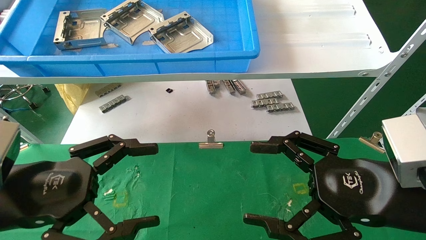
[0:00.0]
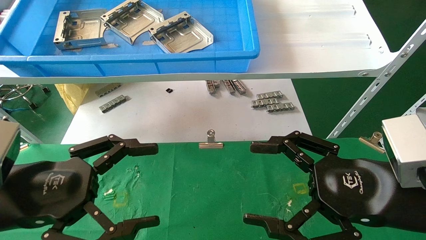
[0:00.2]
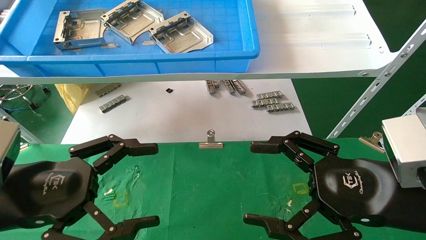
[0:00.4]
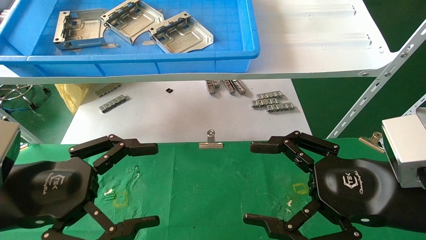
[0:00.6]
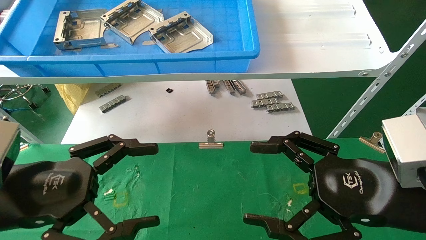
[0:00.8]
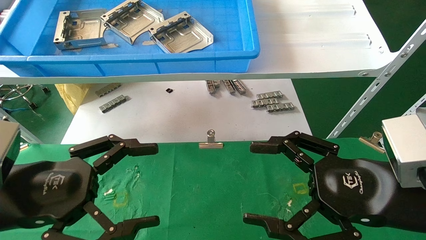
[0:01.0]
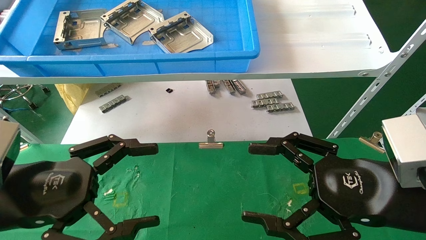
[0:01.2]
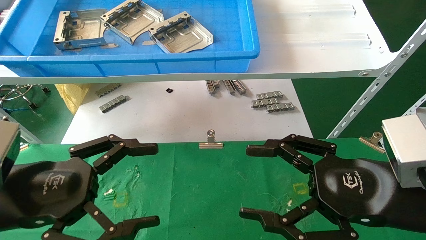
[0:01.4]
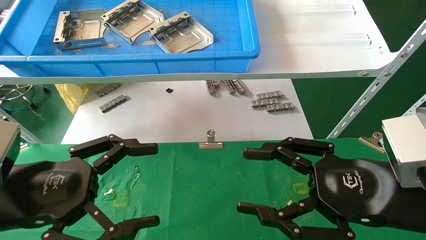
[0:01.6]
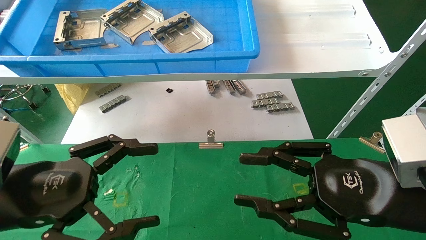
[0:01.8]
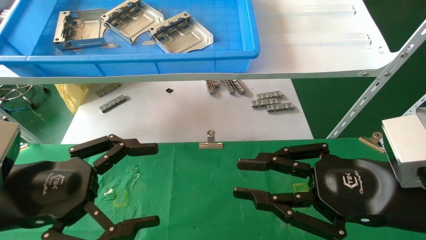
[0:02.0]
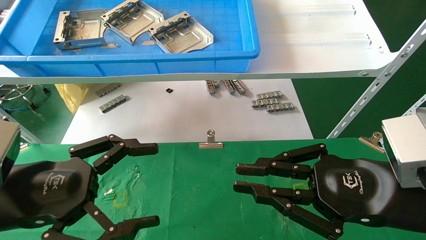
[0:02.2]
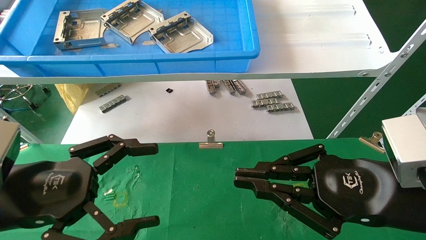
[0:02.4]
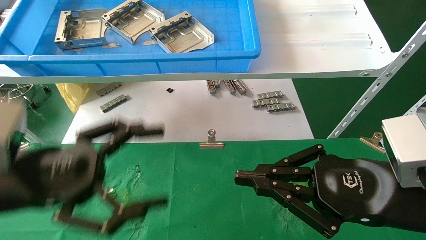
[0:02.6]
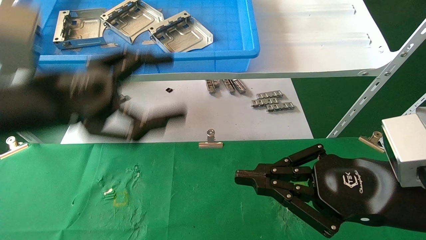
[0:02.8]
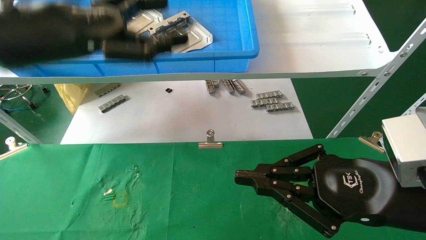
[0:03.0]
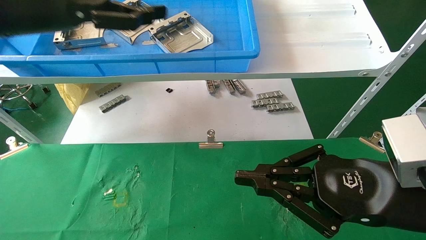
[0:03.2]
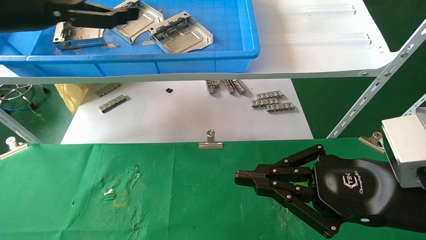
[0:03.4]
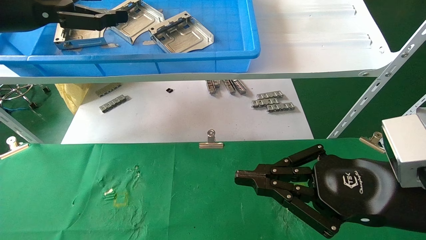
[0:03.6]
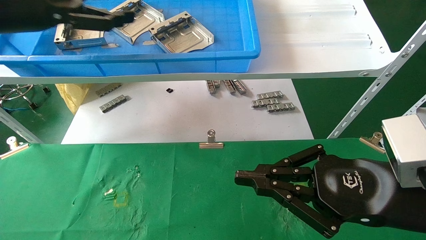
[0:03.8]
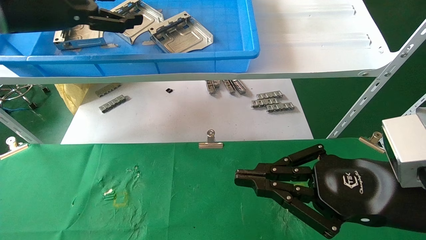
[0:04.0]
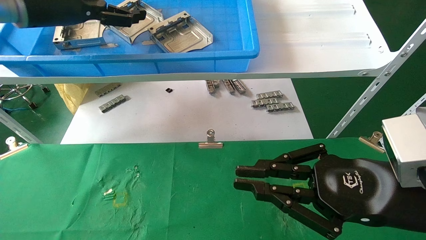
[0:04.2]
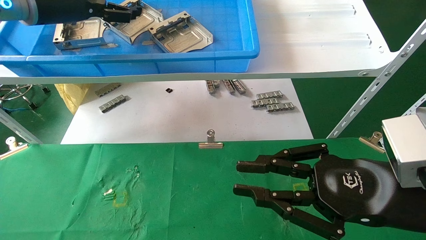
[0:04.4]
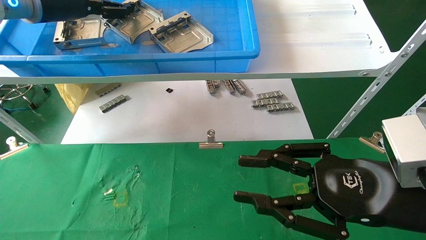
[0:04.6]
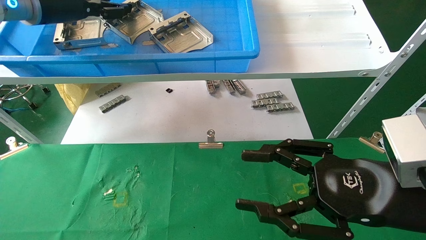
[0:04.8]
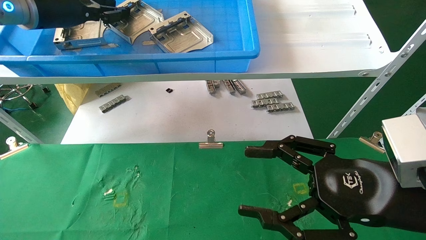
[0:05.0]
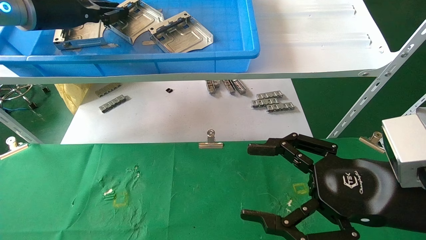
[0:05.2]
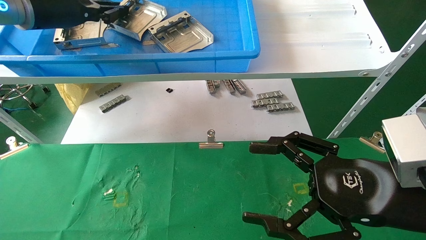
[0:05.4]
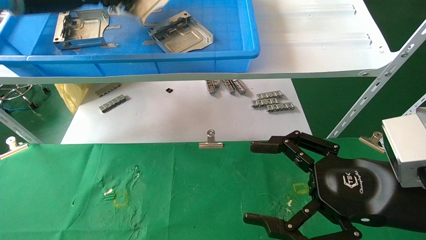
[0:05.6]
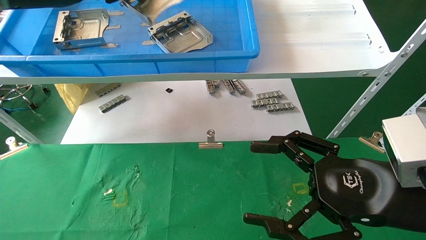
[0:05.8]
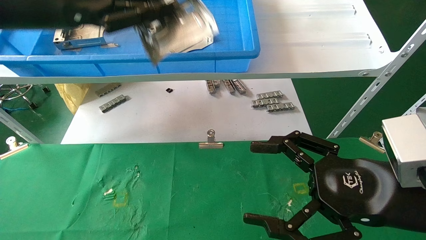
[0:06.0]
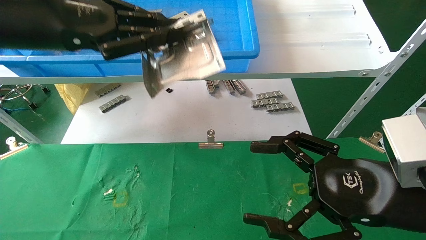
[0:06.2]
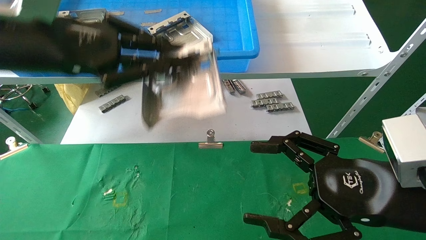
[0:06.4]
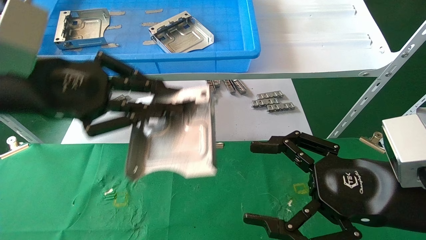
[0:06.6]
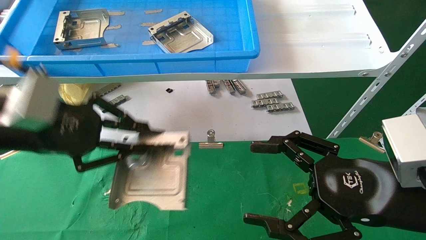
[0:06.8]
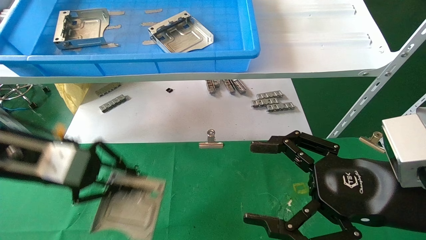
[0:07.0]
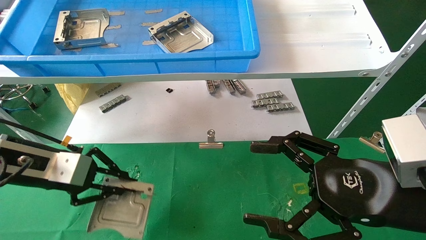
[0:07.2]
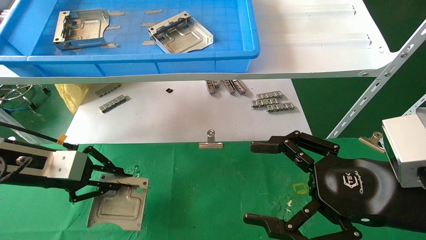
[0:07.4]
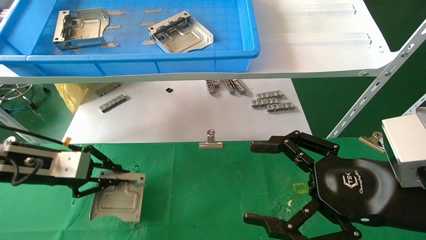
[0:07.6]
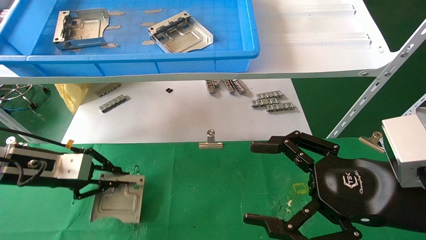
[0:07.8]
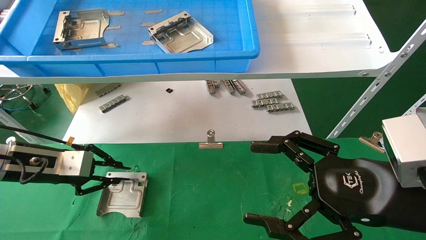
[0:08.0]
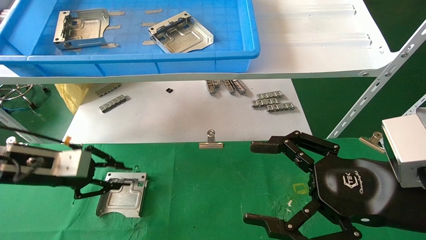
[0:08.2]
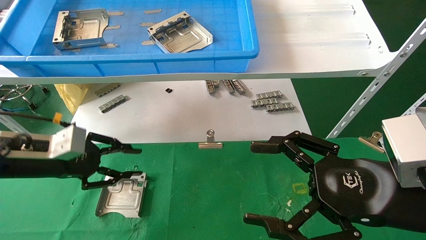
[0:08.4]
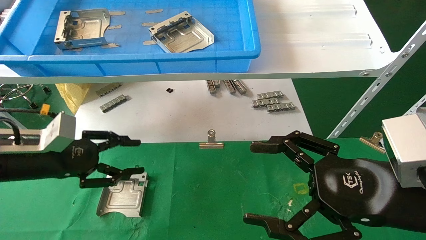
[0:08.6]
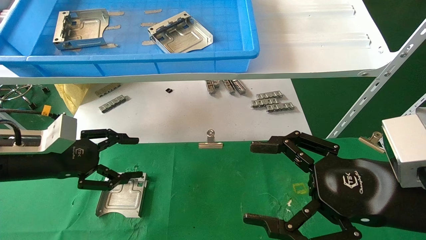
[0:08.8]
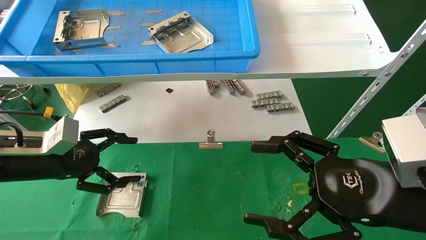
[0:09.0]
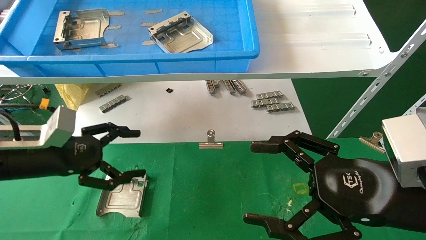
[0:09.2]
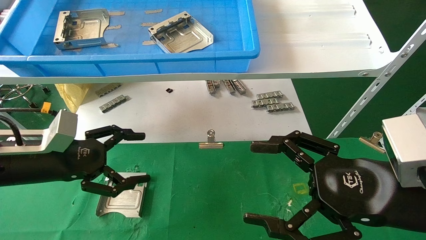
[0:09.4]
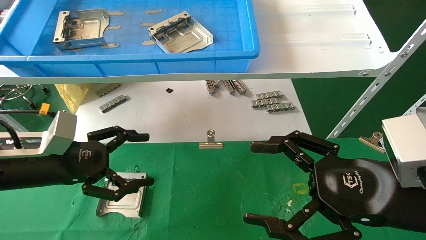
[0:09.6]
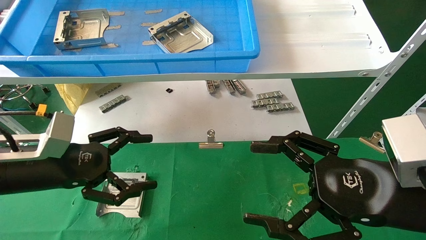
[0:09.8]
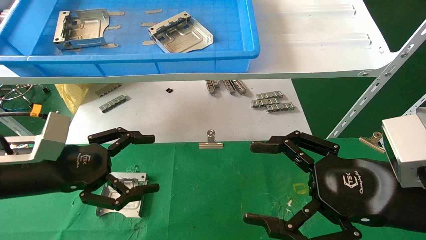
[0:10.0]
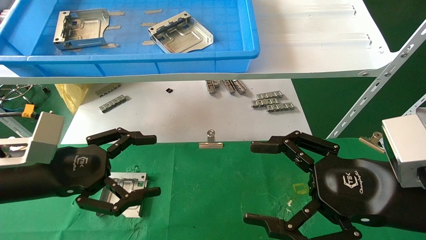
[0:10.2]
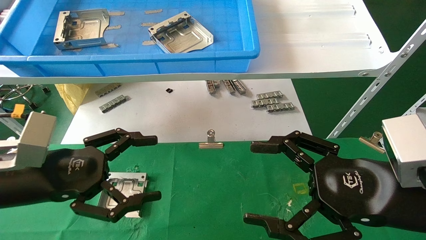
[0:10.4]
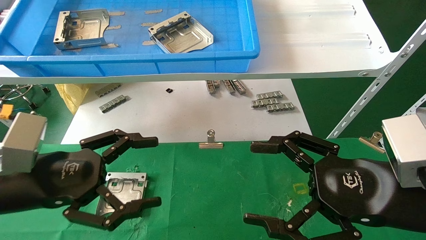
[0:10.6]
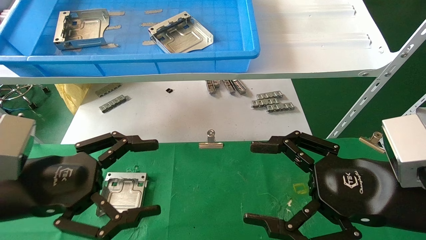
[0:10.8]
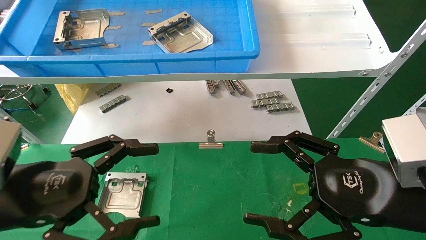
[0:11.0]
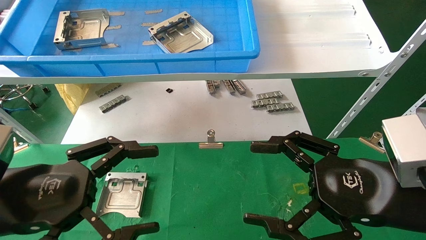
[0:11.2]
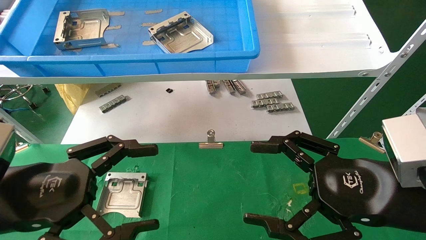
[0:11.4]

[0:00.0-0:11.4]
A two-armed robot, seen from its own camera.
Task of the whole recording: use the mechanical arm to pick up the parts and place them on the table.
Step, 0:02.8 to 0:05.2: Pick up the hard drive bracket from the feeding area.
Step, 0:05.4 to 0:08.2: Place the hard drive bracket into the box.
0:00.0 to 0:01.4: Both grippers stay about where they are.
0:01.4 to 0:02.8: The right gripper closes its fingers. Meanwhile the left gripper travels upward and forward by approximately 15 cm.
0:02.8 to 0:04.2: The left gripper is displaced forward and upward by about 20 cm.
0:04.2 to 0:05.6: The right gripper opens its fingers. Meanwhile the left gripper closes up.
0:05.6 to 0:07.2: The left gripper is displaced downward by approximately 25 cm.
0:07.2 to 0:08.6: The left gripper opens its fingers.
0:08.6 to 0:10.0: The left gripper ends up some 5 cm from where it was, and opens its fingers.
0:10.0 to 0:11.4: The left gripper heads backward, covering some 10 cm.

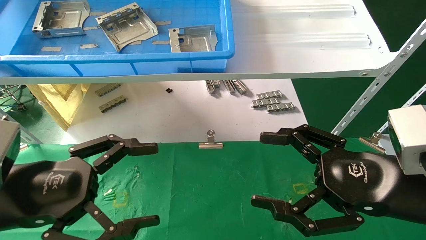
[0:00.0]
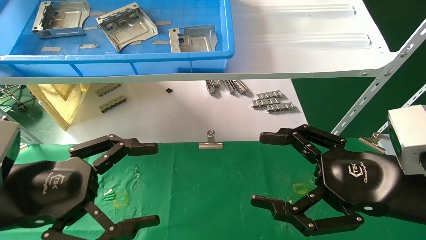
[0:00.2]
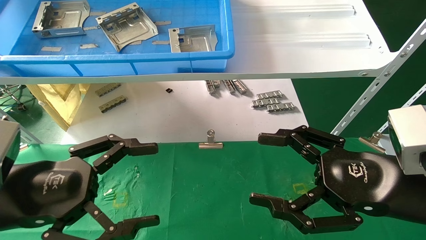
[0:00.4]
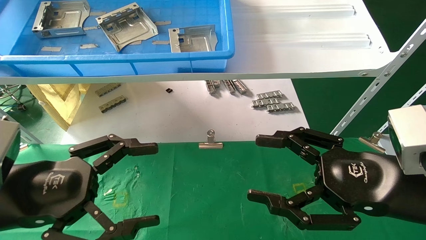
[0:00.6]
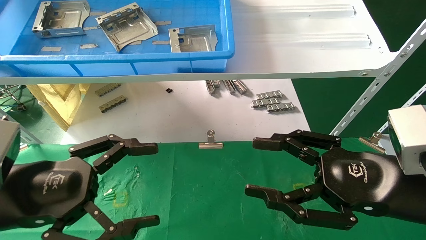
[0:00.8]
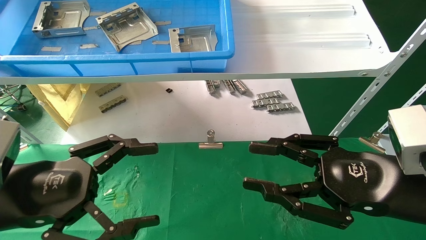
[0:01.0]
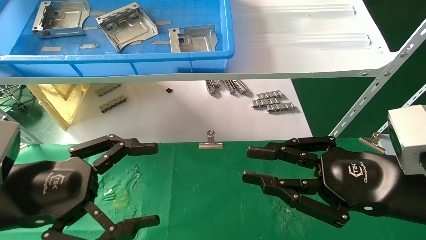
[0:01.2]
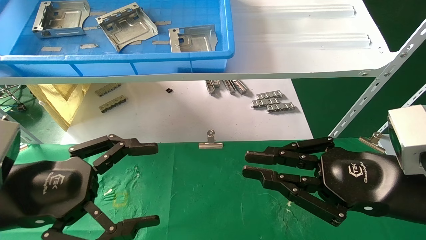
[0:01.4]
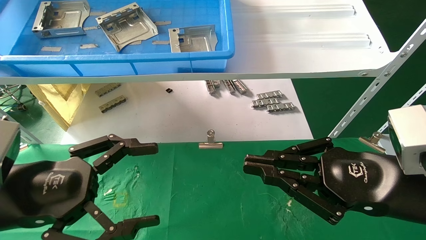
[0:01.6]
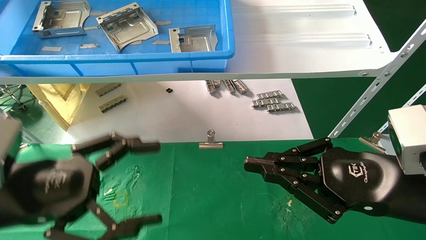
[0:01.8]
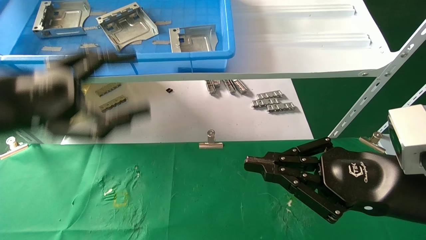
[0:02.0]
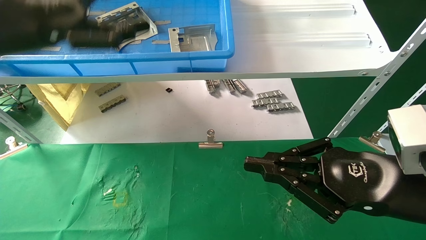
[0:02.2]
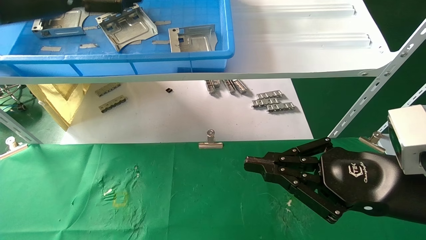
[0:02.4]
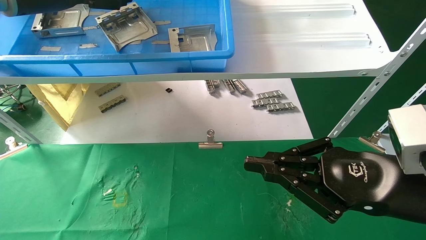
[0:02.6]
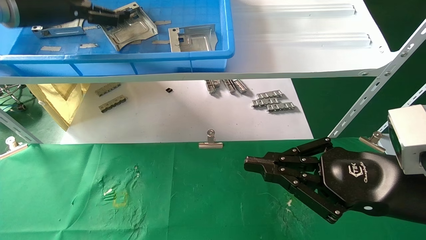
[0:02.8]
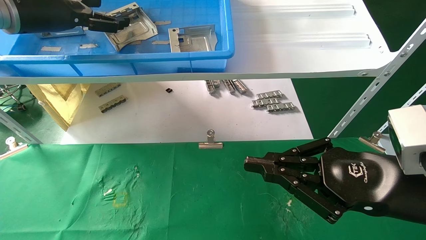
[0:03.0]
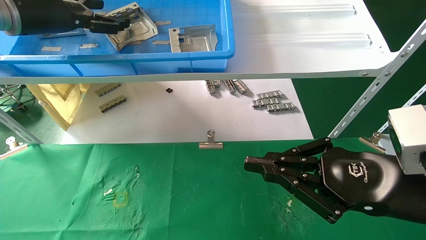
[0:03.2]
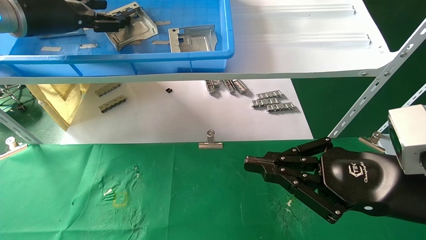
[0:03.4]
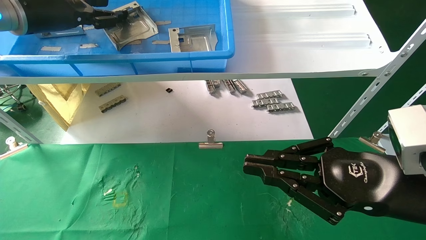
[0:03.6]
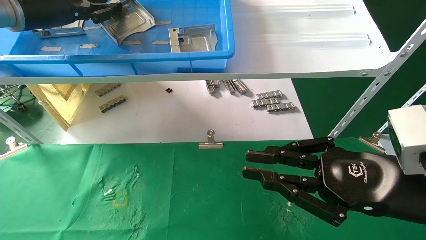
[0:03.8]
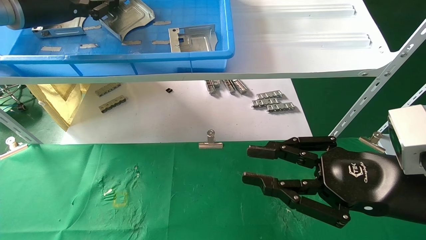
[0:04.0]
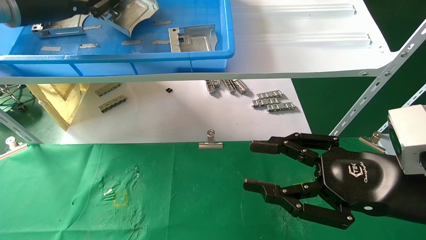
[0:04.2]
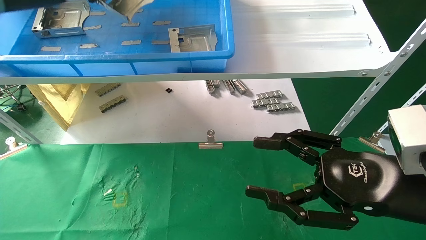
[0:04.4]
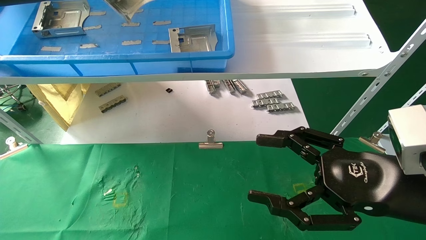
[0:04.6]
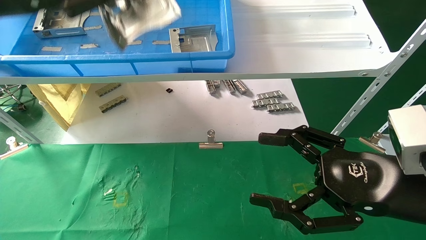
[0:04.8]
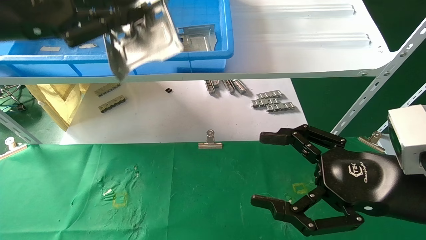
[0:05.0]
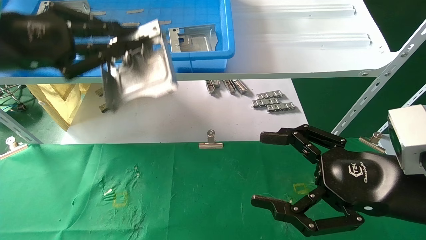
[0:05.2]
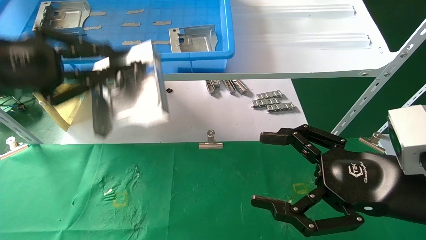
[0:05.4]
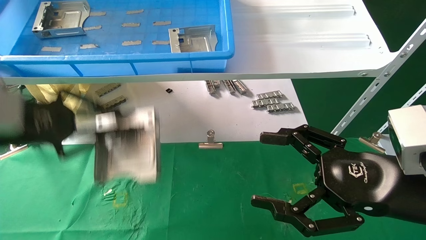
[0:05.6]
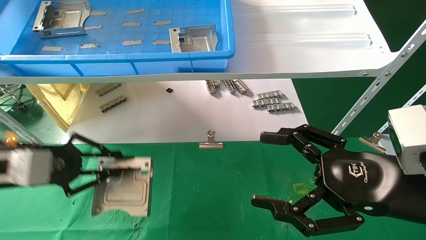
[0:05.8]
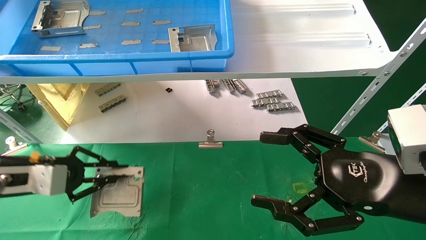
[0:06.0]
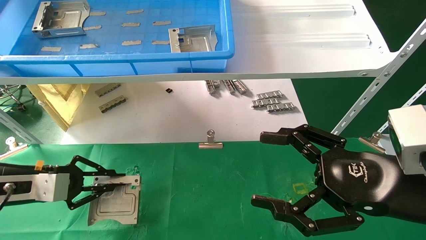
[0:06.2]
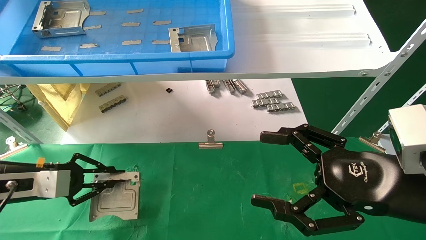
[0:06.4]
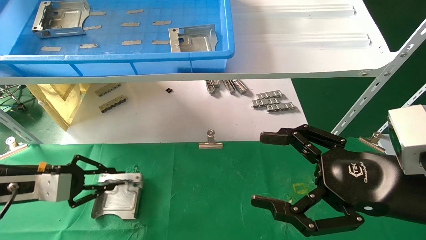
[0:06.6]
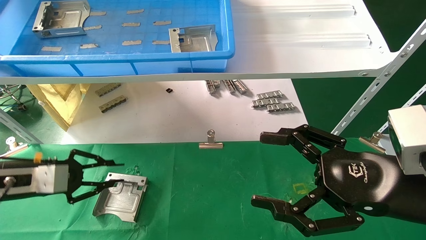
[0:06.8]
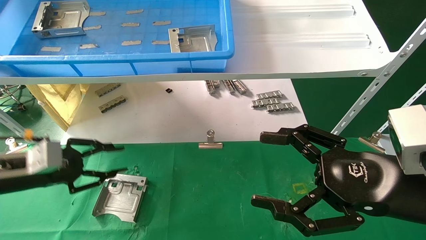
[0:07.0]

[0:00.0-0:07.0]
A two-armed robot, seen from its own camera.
Task of the whole recording: use the mechanical arm to pick up the parts and place them on the table.
Step, 0:02.2 to 0:04.0: Pick up the hard drive bracket from the feeding area.
Step, 0:04.2 to 0:06.8: Place the hard drive bracket into the box.
0:00.0 to 0:01.4: The right gripper closes.
0:01.4 to 0:02.8: The left gripper shifts about 30 cm upward and forward.
0:02.8 to 0:04.2: The left gripper closes up; the right gripper opens up.
0:04.2 to 0:05.6: The right gripper opens its fingers. The left gripper is displaced downward and backward by some 20 cm.
0:05.6 to 0:07.0: The left gripper goes some 10 cm downward.
